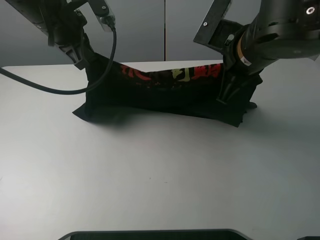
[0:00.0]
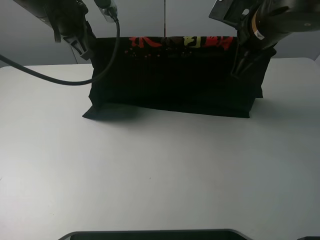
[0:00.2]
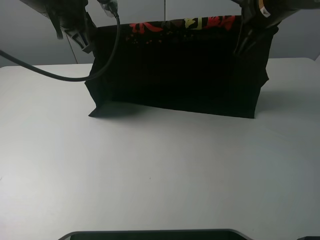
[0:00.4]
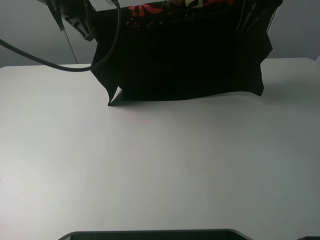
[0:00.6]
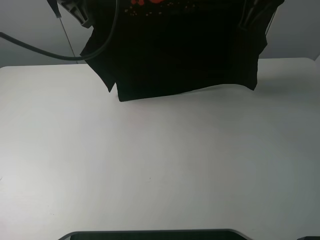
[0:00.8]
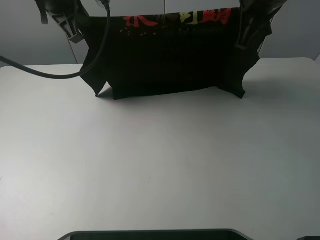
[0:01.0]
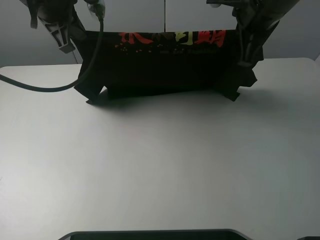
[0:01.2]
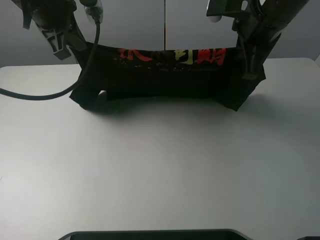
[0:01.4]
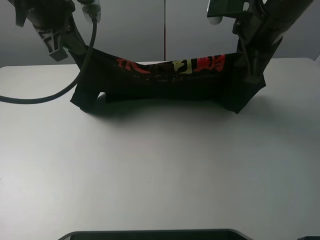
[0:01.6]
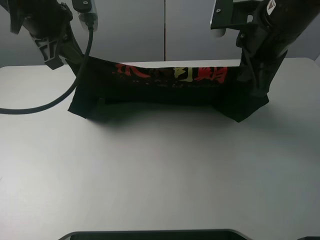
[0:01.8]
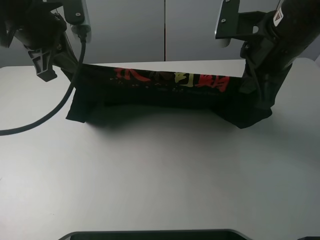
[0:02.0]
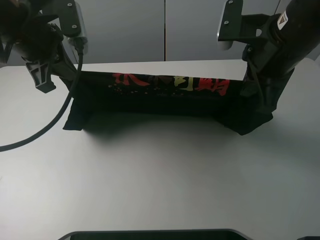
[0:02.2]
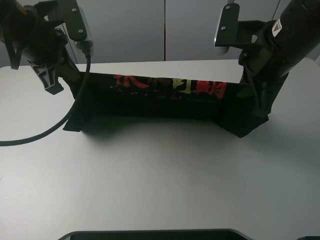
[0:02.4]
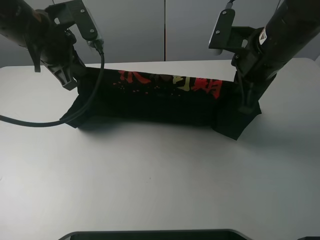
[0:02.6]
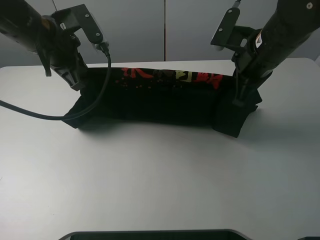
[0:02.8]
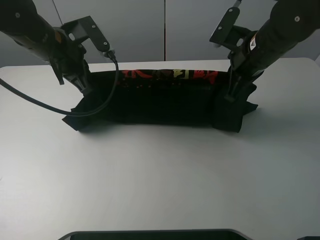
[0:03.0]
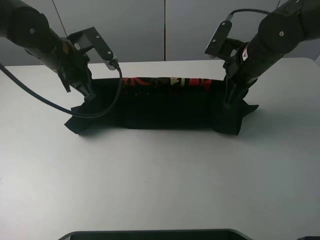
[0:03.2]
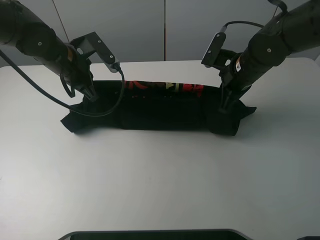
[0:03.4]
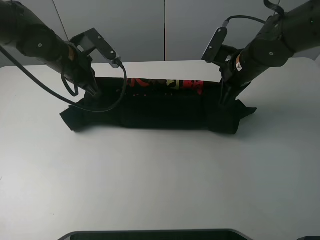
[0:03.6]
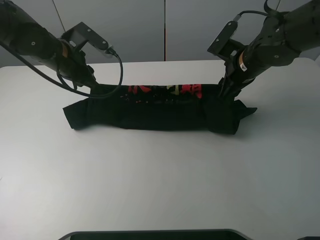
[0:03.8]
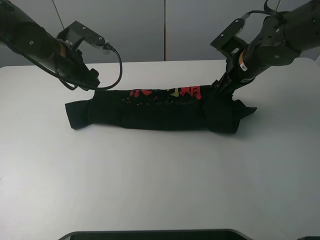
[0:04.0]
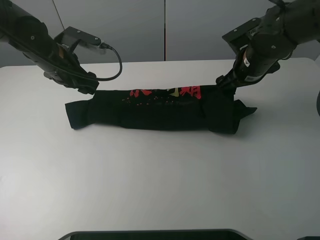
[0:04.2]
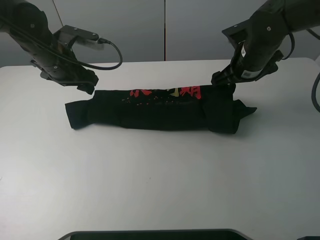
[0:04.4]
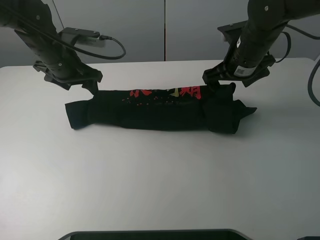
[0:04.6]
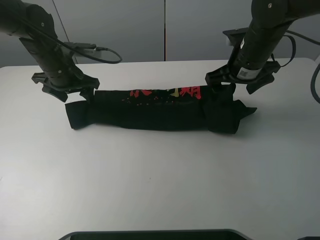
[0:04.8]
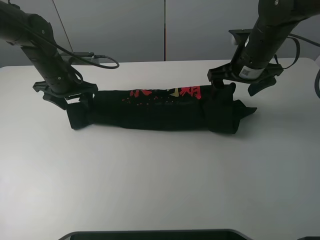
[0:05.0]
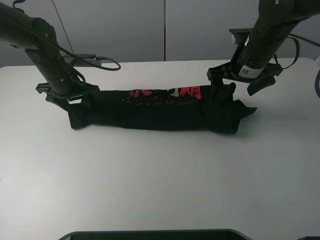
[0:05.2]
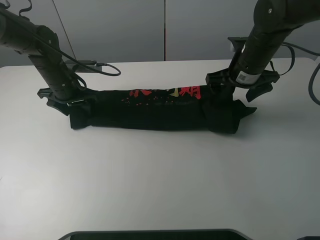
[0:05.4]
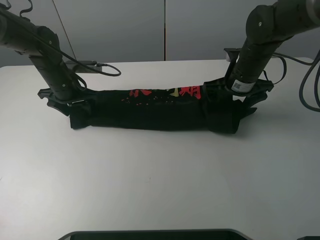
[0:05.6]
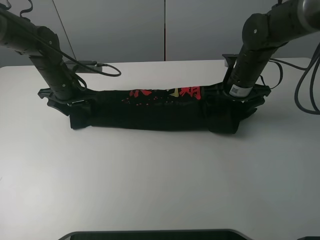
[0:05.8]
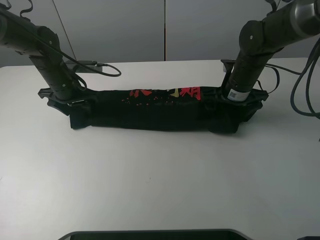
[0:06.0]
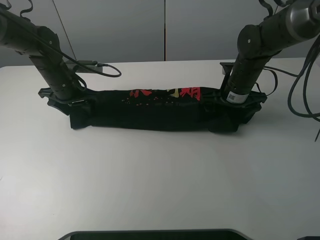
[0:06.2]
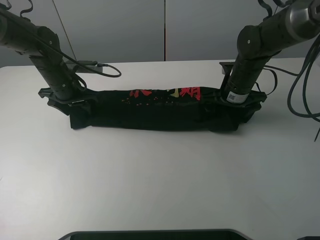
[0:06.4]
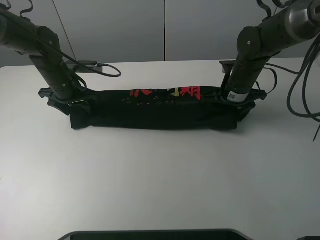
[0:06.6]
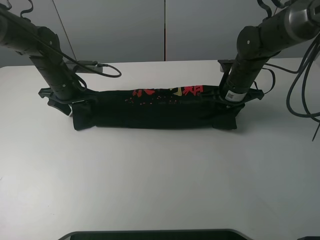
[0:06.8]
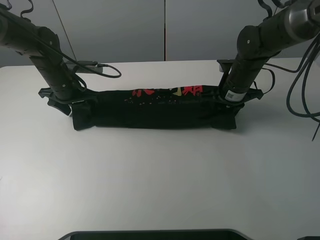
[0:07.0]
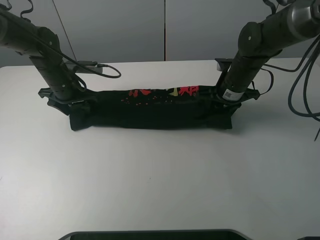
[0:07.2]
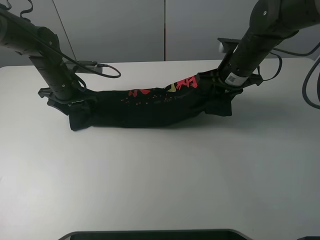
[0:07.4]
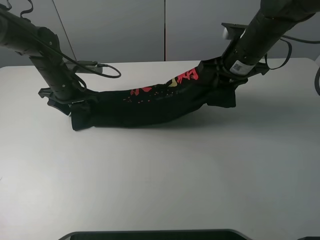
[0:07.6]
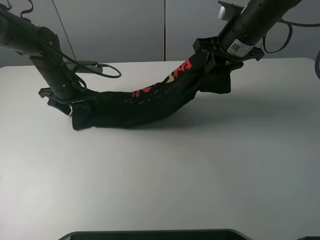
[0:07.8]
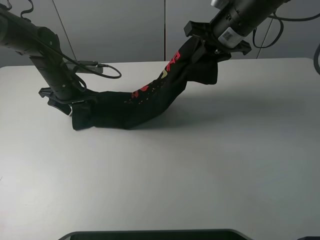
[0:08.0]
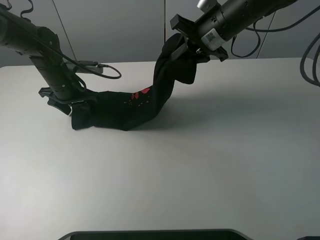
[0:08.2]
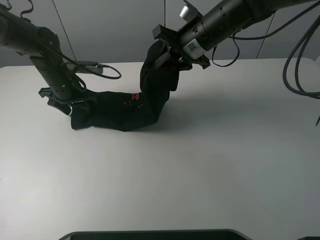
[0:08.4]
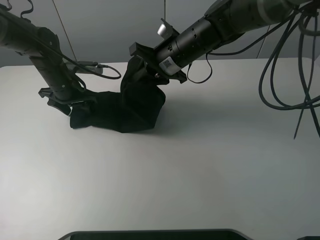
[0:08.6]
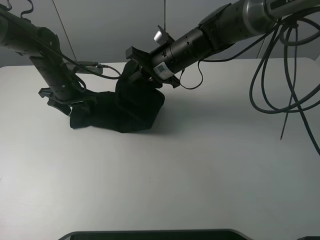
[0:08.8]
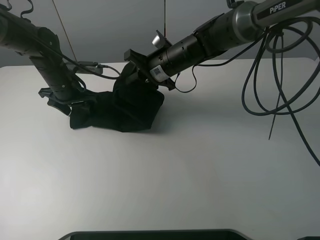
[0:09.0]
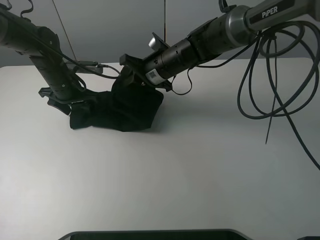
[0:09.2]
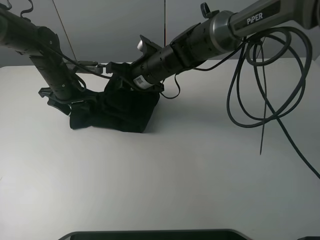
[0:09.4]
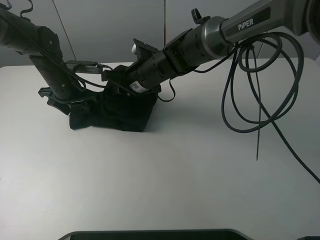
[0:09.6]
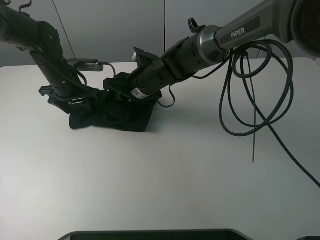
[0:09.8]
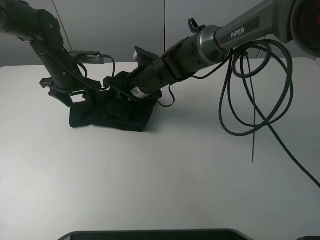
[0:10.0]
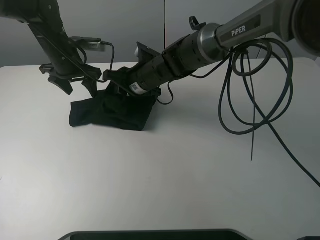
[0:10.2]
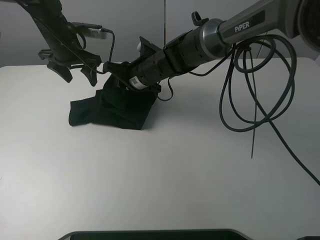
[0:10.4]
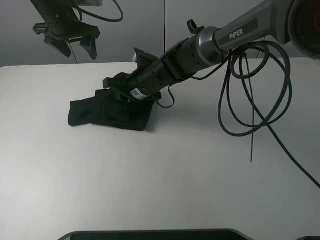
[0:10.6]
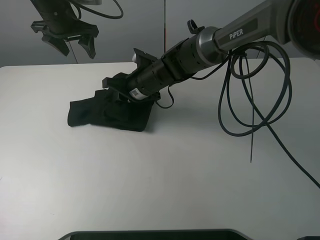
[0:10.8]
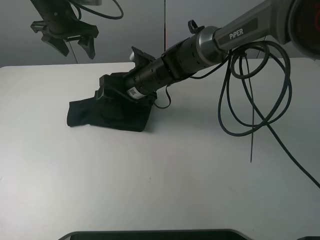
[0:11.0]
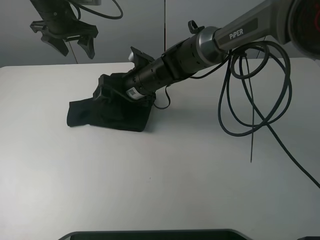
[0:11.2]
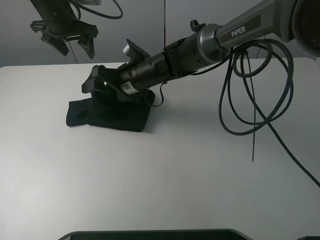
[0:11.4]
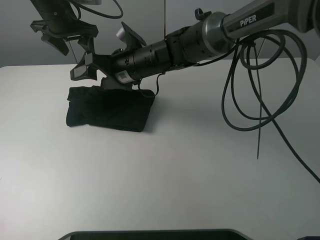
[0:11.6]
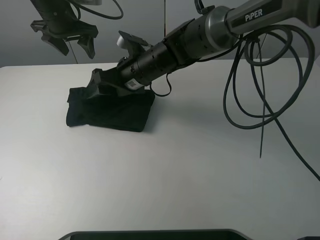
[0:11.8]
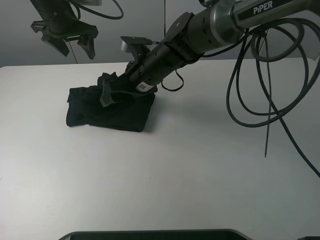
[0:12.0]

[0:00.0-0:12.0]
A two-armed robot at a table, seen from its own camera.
Task of the whole recording: fold the clothes on the table.
Step, 0.0 to 4.6 s: Fold the black T-shirt downward with the left gripper.
Step, 4.8 to 6.8 s: Grasp the black T-shirt with the right gripper.
Step, 7.0 to 12.0 s: Fold the black T-shirt from right to left with right gripper.
1.6 to 3.0 s: Both grippers travel together downward, about 10 cm.
3.0 to 4.4 s: The right gripper opens its fingers; the left gripper opens up.
4.4 to 6.0 s: The two grippers go roughly 5 cm downward.
6.0 to 7.6 s: The right gripper shifts approximately 10 cm upward, and closes its fingers.
7.6 to 9.0 s: The right gripper moves to the left and downward, roughly 15 cm.
9.0 to 10.4 s: The left gripper moves upward, roughly 10 cm; the right gripper ends up approximately 5 cm from where it was.
10.4 to 12.0 s: The right gripper opens.

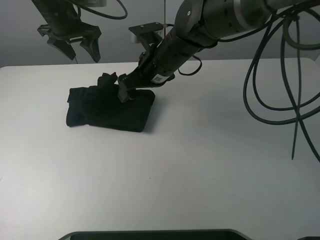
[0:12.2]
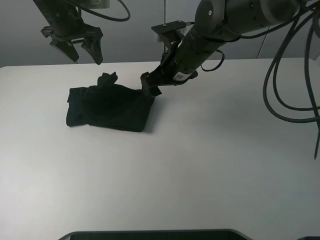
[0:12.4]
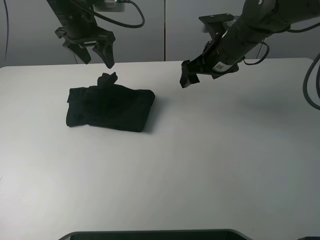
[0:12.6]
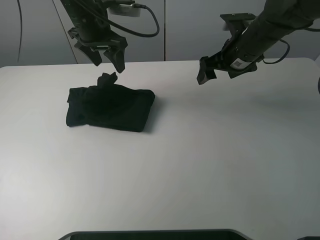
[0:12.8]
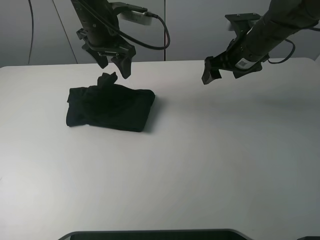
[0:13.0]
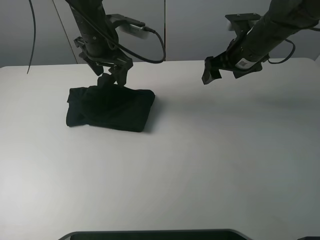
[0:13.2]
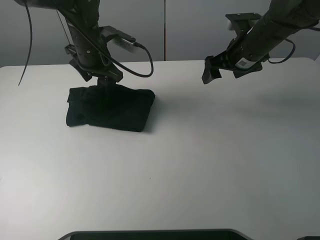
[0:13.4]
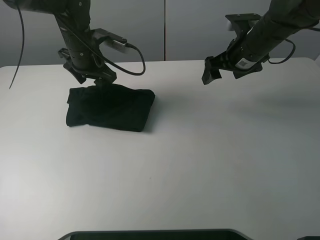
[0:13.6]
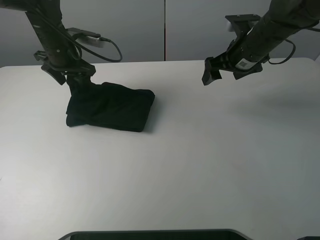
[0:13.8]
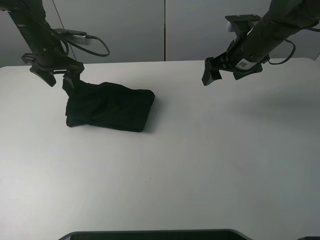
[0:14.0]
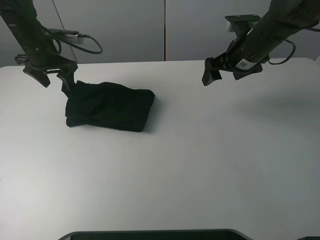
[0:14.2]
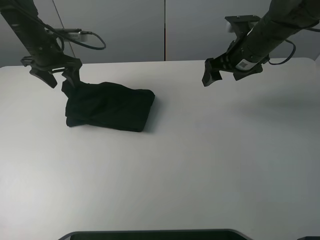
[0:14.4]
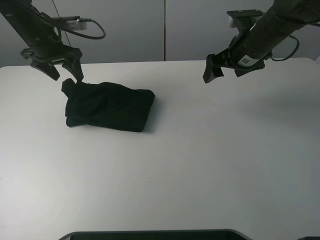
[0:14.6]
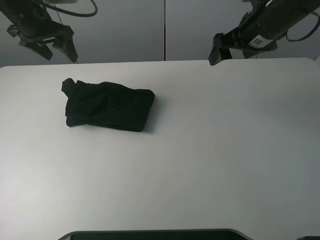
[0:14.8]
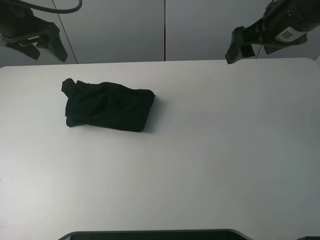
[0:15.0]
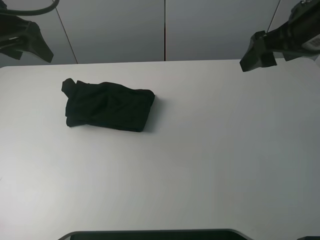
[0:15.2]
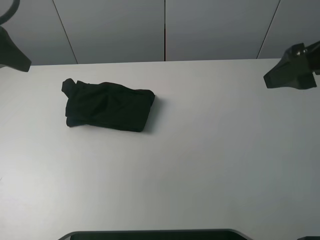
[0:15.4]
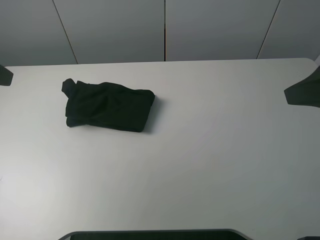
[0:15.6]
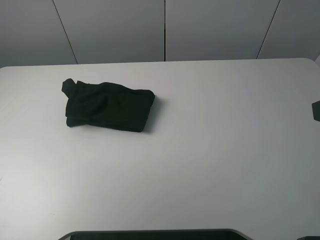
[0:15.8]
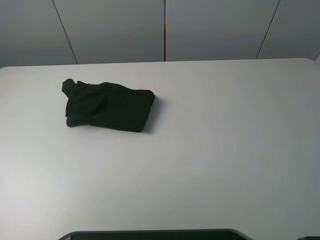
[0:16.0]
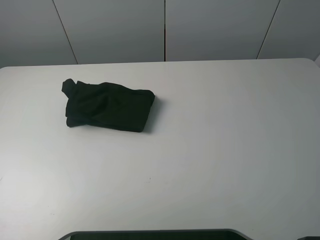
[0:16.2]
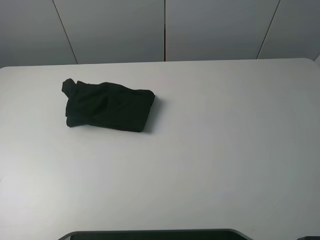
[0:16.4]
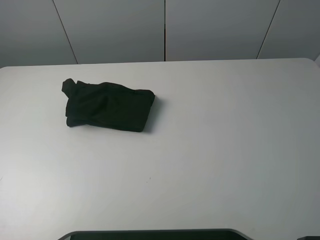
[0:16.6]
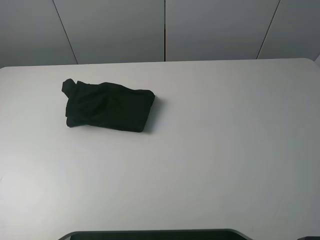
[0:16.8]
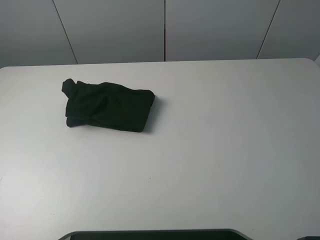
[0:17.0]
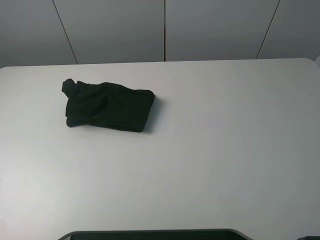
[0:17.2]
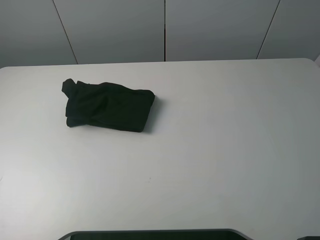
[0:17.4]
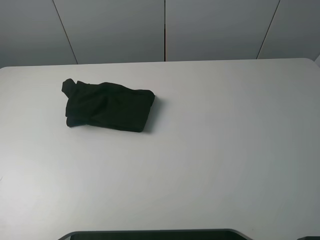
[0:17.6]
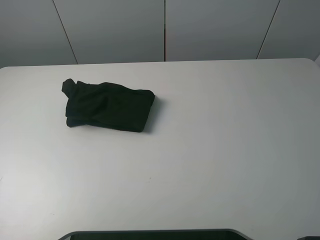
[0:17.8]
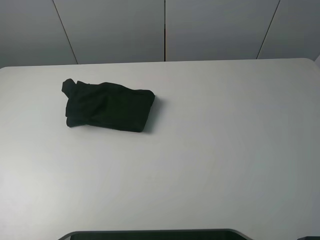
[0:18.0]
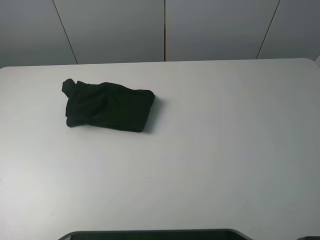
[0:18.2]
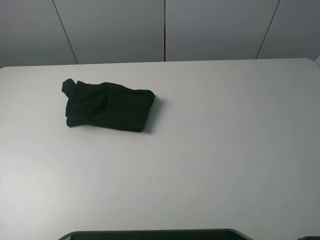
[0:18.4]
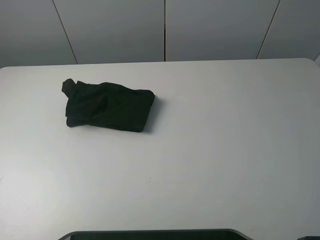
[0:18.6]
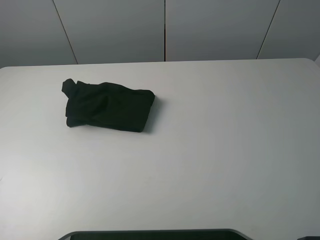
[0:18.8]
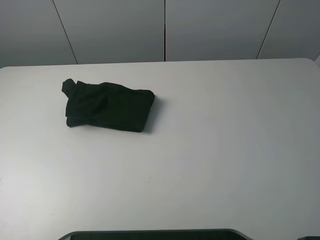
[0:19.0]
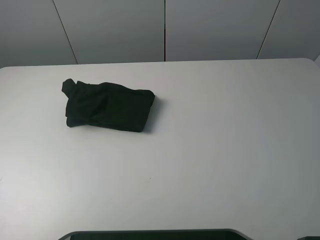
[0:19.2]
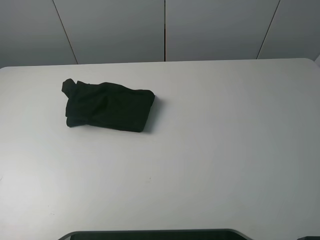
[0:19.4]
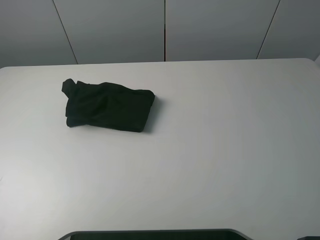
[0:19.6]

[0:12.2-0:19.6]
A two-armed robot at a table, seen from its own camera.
Task of the whole recording: fold the clothes on the table.
Step, 12.2 to 14.0 s: Use the left gripper to tidy up the clothes.
12.2 to 13.6 s: The right gripper shifts about 15 cm to the right; the left gripper heads downward, covering roughly 5 cm.
13.6 to 15.2 s: The right gripper is displaced backward and upward by about 15 cm. Meanwhile the left gripper goes approximately 20 cm upward, to the left and backward.
15.2 to 16.6 s: Both grippers move backward, roughly 25 cm.
18.2 to 19.6 s: Both grippers stay about where they are.

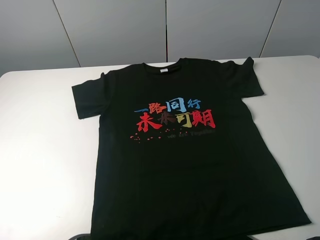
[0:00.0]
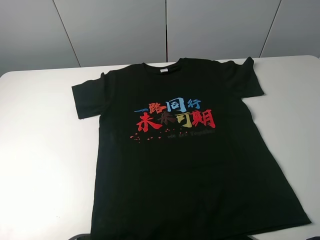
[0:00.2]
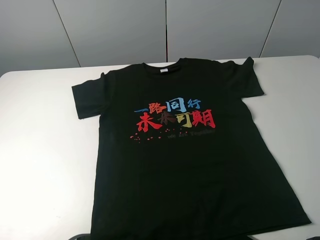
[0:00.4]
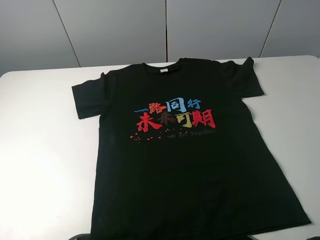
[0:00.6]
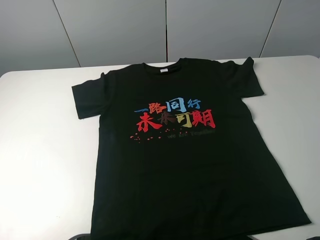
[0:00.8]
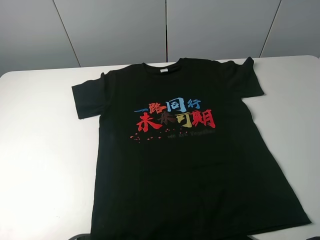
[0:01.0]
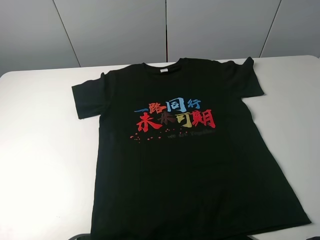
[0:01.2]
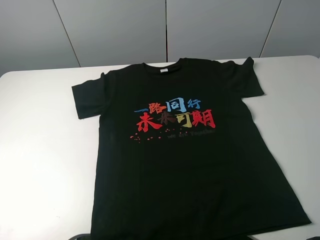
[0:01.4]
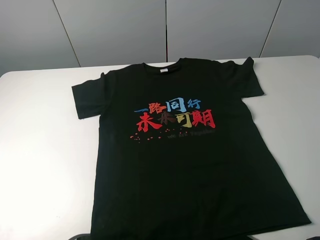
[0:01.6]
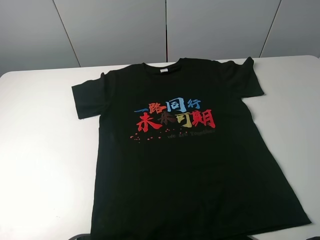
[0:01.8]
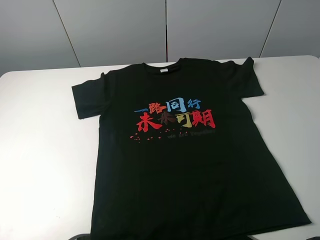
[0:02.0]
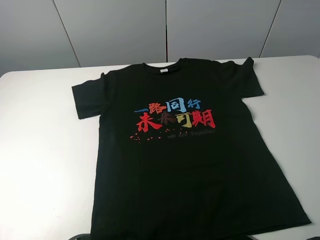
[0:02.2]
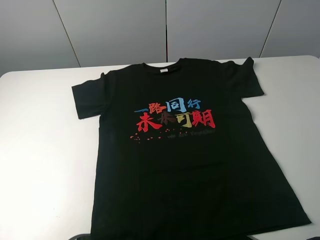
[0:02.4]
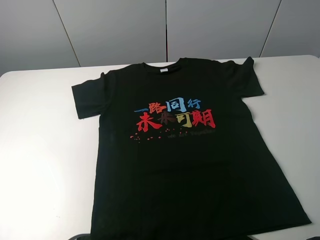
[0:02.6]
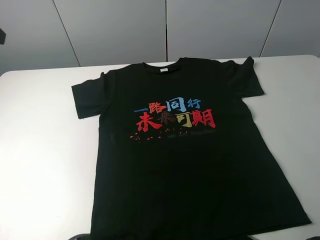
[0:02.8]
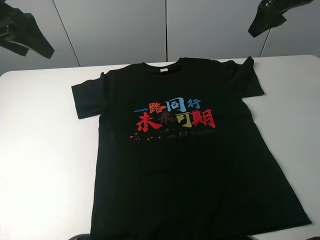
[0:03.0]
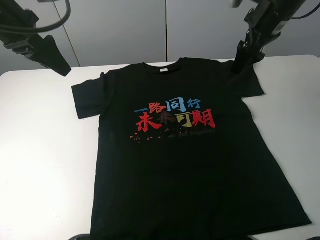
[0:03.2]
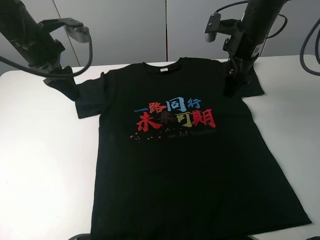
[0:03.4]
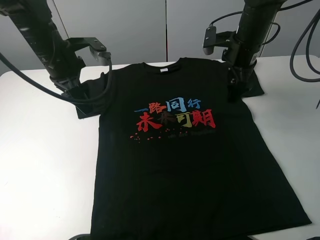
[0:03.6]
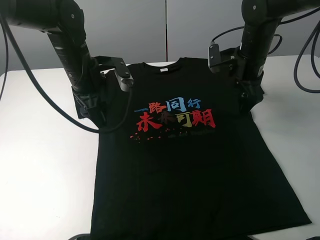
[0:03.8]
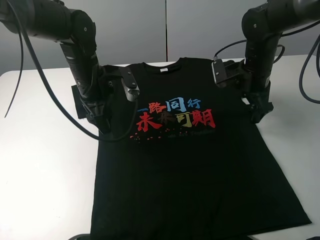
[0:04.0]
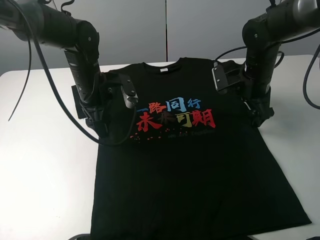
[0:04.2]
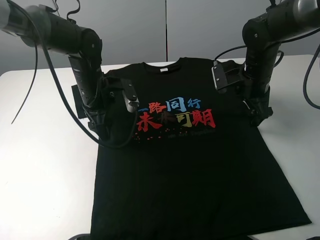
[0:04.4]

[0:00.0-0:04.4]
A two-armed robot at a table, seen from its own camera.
Task of the whole recording: fold the clothes on the table.
0.0 to 1.4 s: Both grippers stay about where they are.
1.4 to 3.0 s: The grippers both shift forward by approximately 35 cm.
3.0 to 4.4 s: The right gripper heads downward, covering some 20 cm, while the left gripper travels downward and to the right by about 25 cm.
